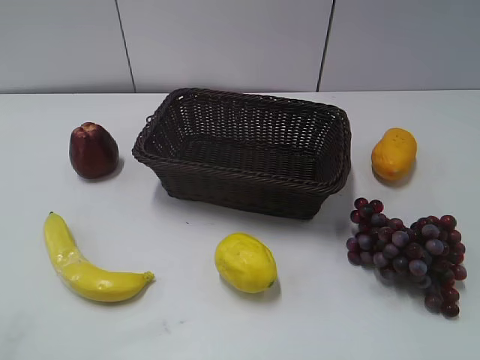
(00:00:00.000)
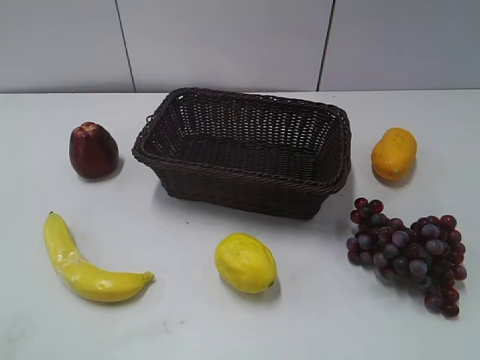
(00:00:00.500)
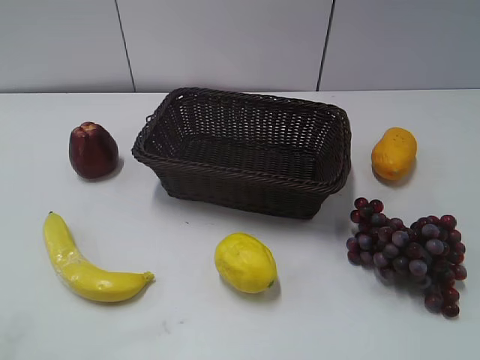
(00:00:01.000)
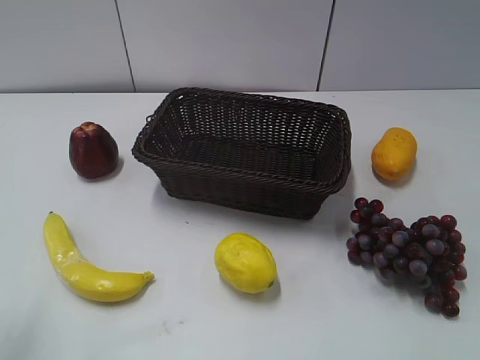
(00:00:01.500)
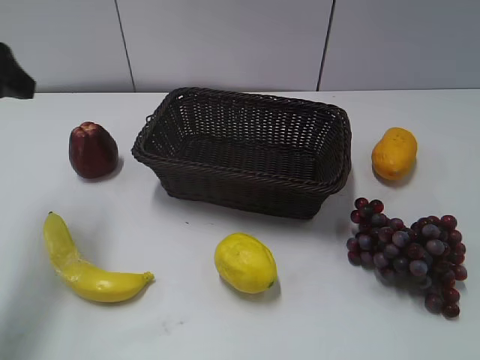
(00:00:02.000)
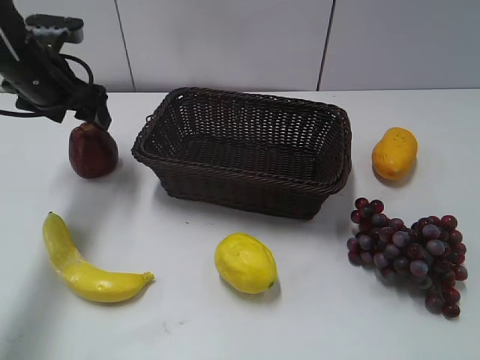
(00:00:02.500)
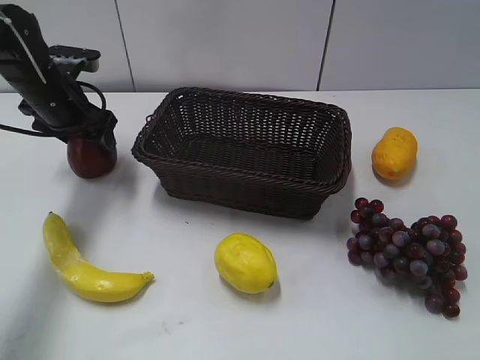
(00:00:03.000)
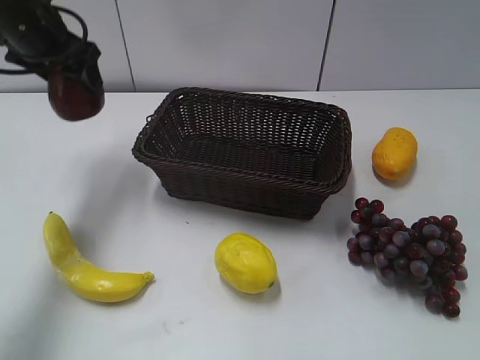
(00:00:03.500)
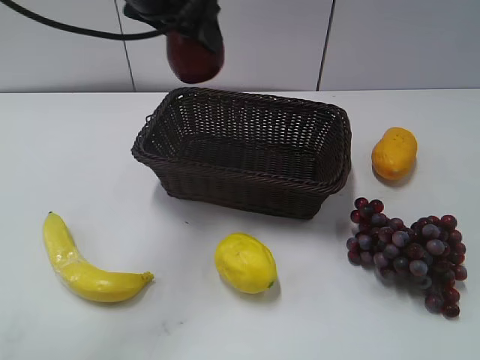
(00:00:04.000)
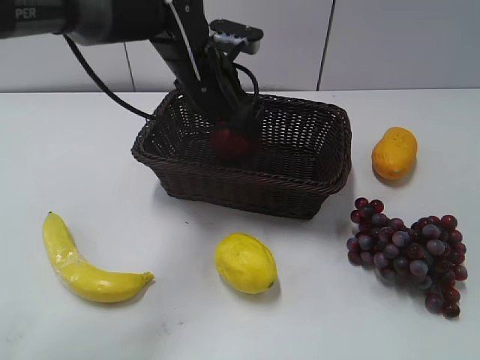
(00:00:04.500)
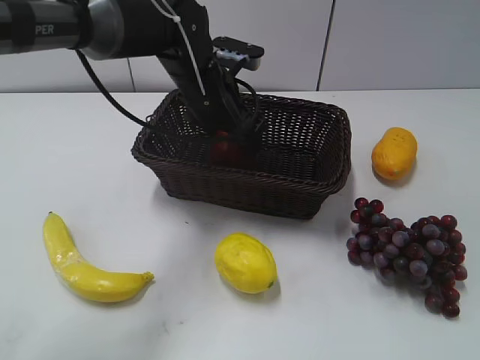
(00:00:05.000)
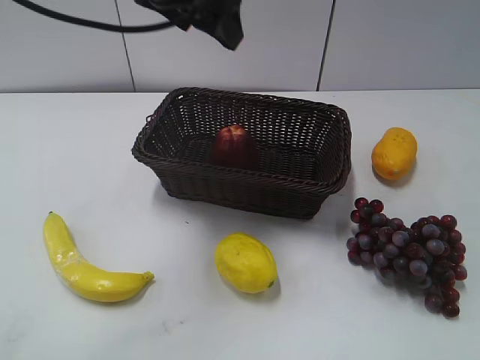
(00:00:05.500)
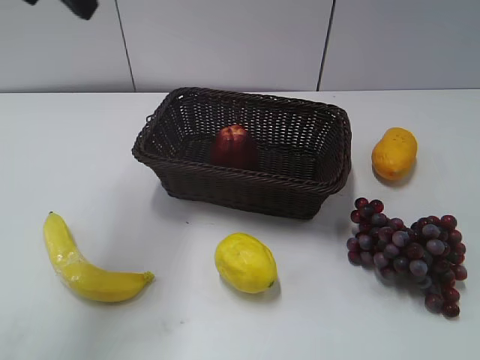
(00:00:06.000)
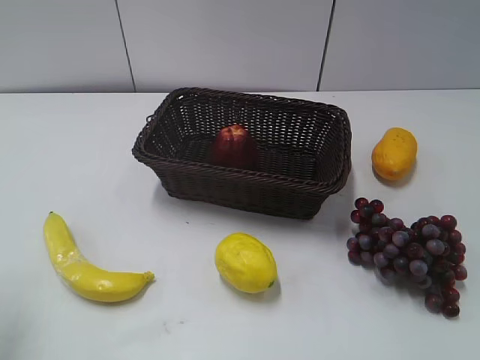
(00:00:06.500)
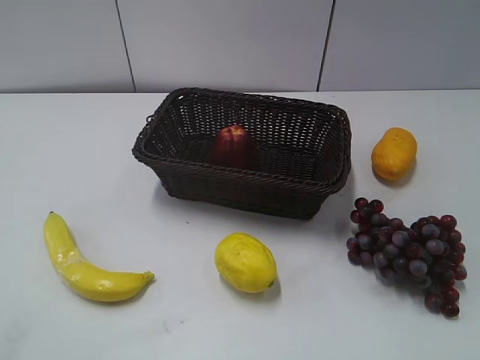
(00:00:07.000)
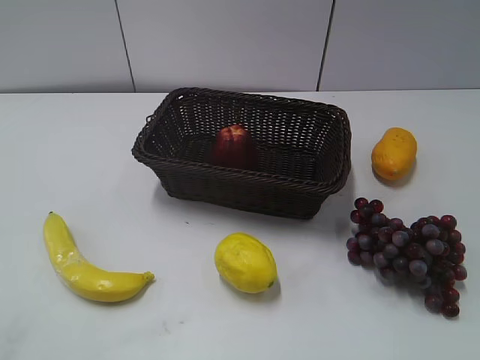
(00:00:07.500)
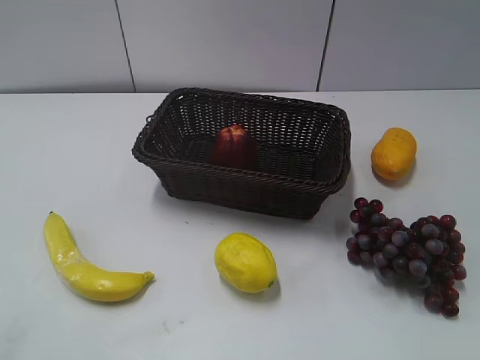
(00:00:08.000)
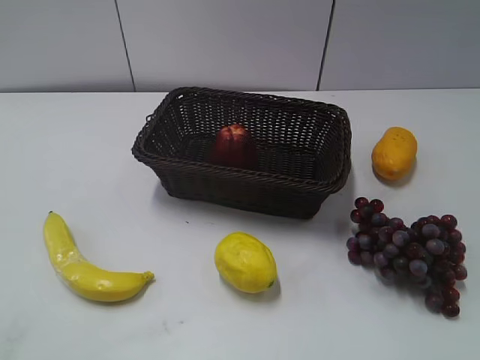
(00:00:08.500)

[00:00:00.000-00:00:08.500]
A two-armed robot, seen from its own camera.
Step, 00:00:02.000 to 00:00:02.500: Grasp the apple with left gripper.
Step, 00:00:03.500 to 00:00:04.500: Place the apple in the basket with left gripper.
00:00:02.000 to 00:00:04.000: The left gripper is displaced to the right and forward by about 20 cm, and closes its fingers.
00:00:04.000 to 00:00:06.500: The left gripper travels to the left and backward by approximately 30 cm, and opens, then closes once more.
